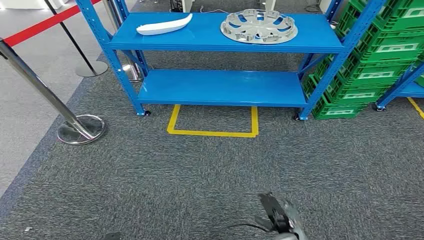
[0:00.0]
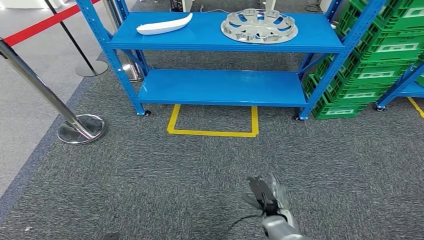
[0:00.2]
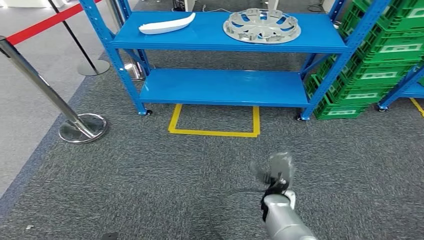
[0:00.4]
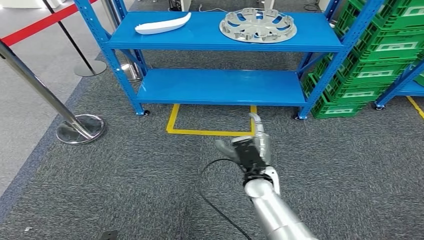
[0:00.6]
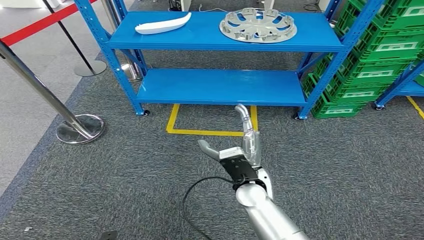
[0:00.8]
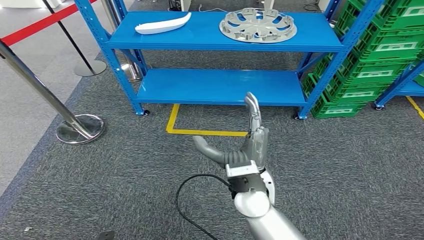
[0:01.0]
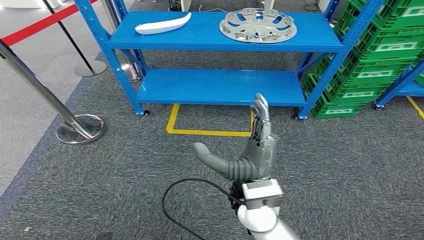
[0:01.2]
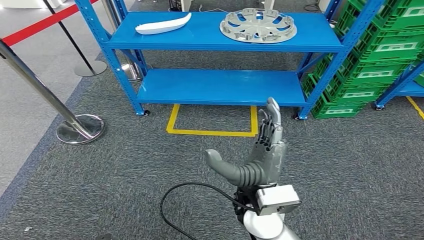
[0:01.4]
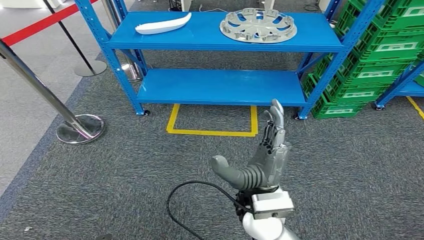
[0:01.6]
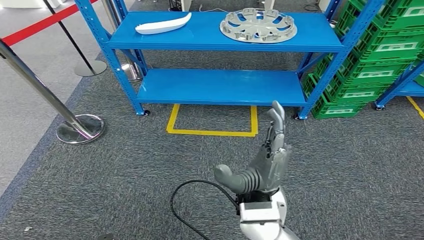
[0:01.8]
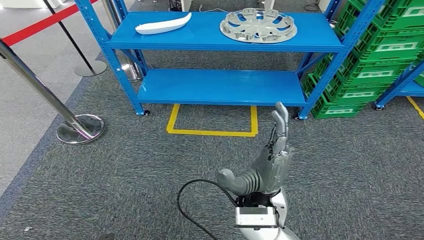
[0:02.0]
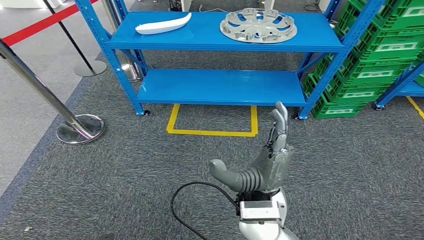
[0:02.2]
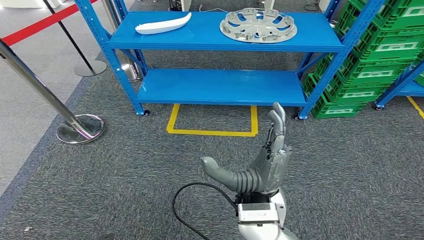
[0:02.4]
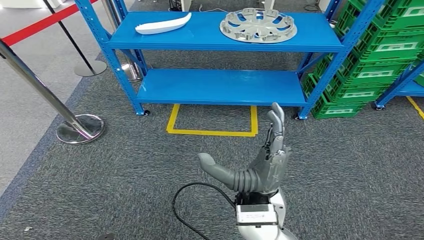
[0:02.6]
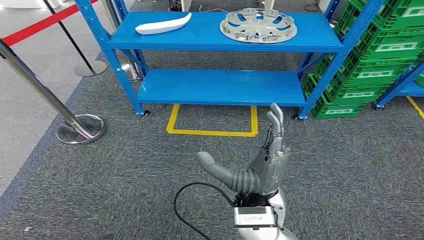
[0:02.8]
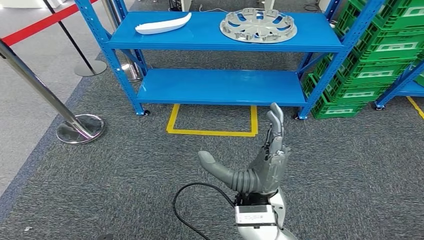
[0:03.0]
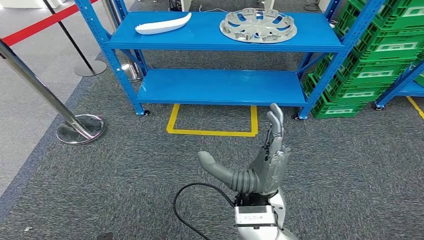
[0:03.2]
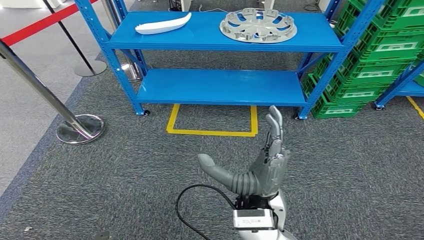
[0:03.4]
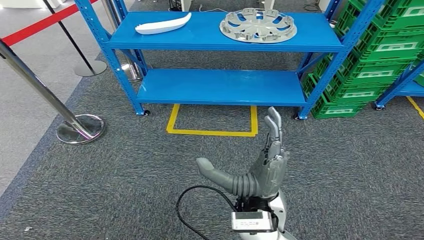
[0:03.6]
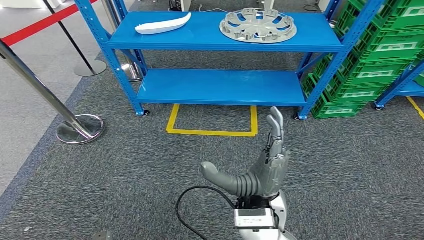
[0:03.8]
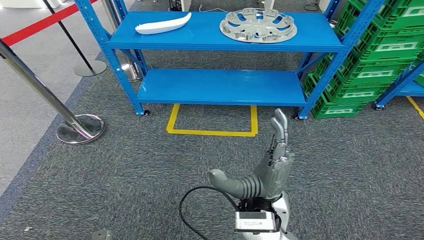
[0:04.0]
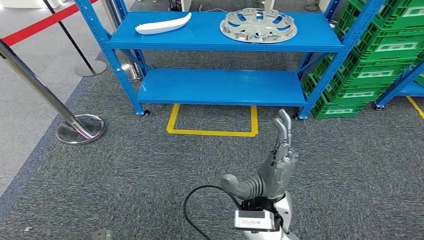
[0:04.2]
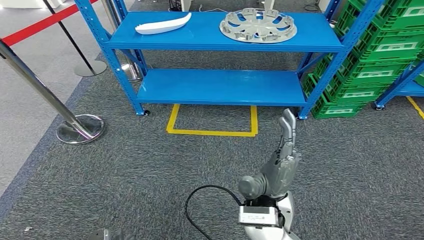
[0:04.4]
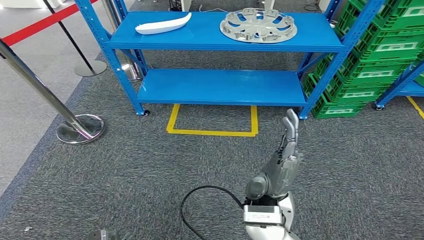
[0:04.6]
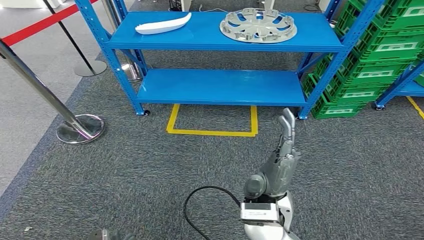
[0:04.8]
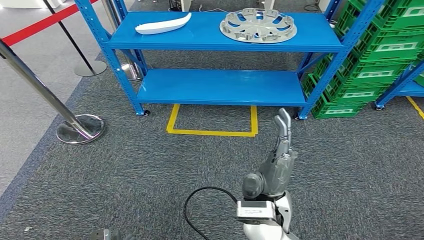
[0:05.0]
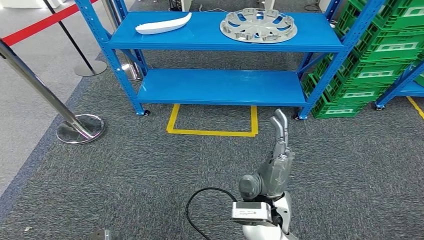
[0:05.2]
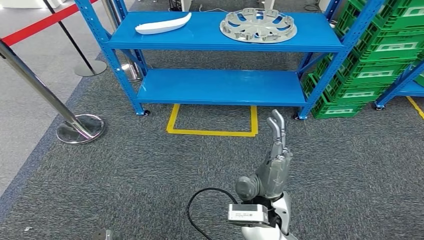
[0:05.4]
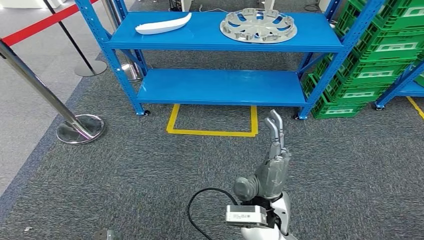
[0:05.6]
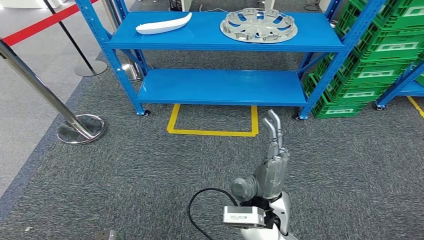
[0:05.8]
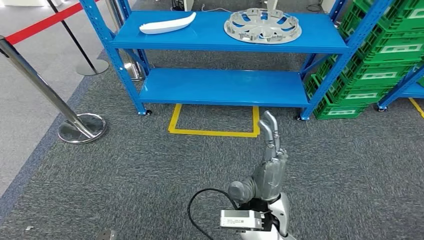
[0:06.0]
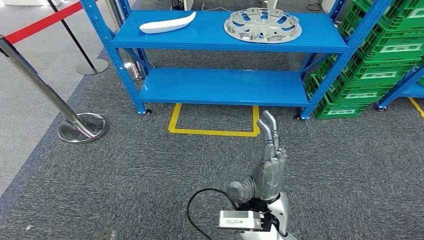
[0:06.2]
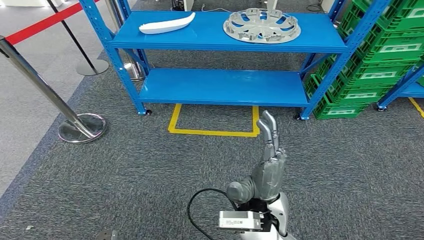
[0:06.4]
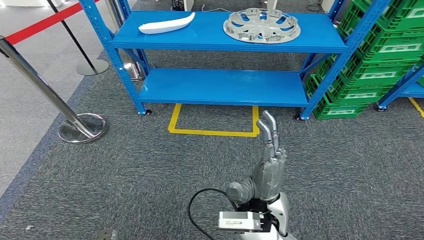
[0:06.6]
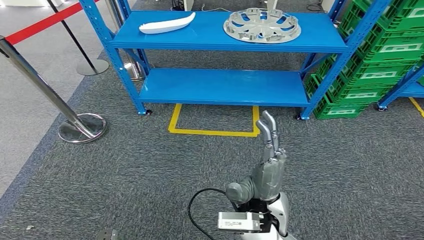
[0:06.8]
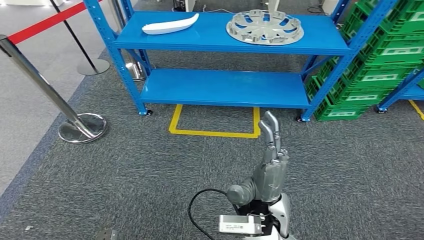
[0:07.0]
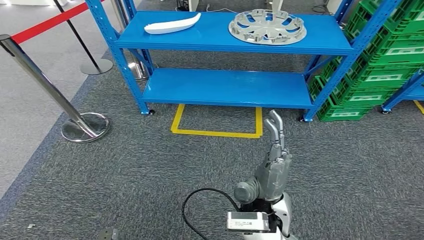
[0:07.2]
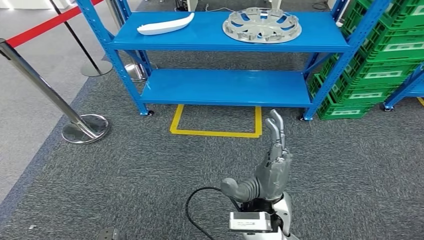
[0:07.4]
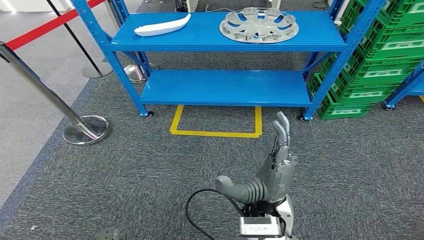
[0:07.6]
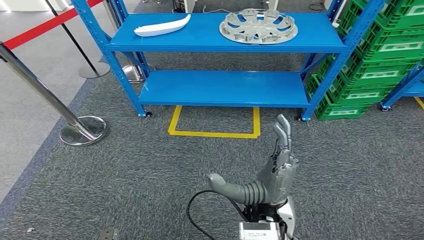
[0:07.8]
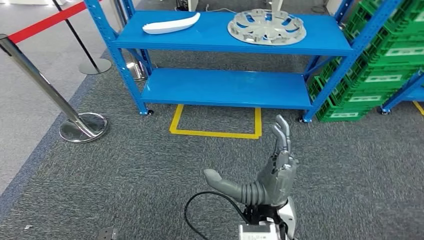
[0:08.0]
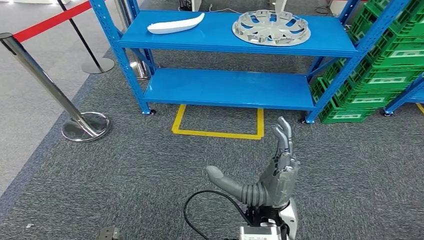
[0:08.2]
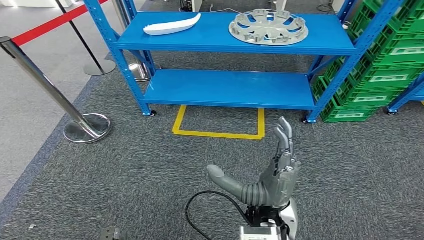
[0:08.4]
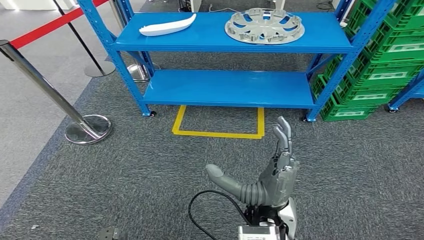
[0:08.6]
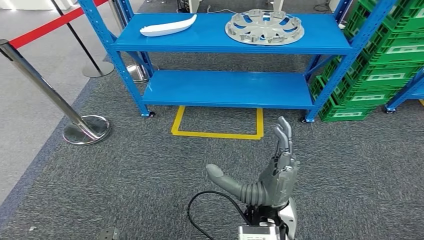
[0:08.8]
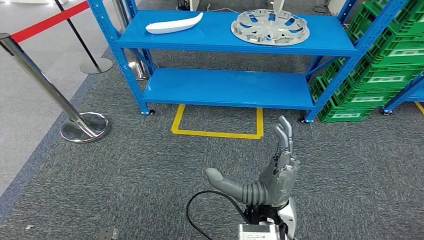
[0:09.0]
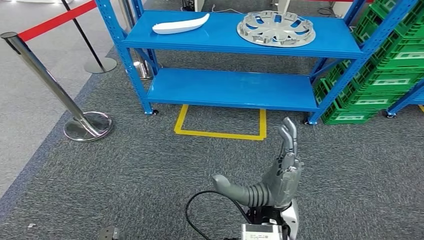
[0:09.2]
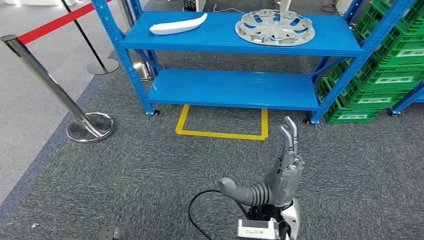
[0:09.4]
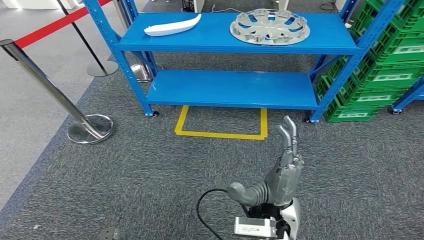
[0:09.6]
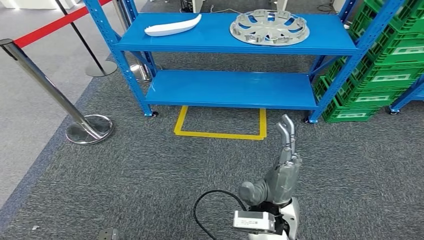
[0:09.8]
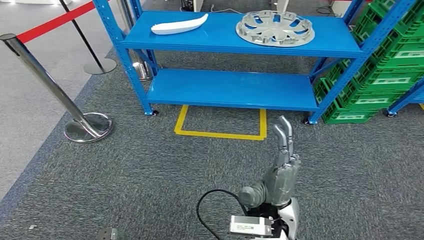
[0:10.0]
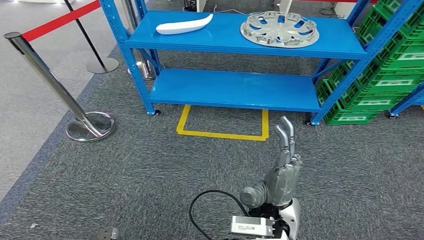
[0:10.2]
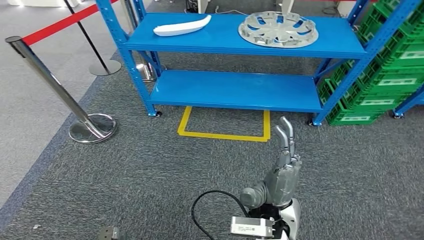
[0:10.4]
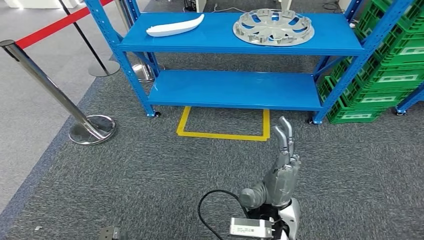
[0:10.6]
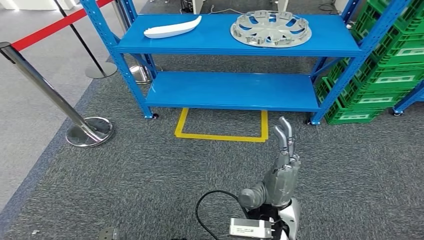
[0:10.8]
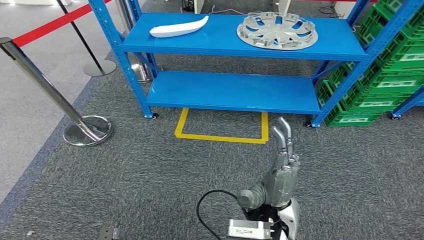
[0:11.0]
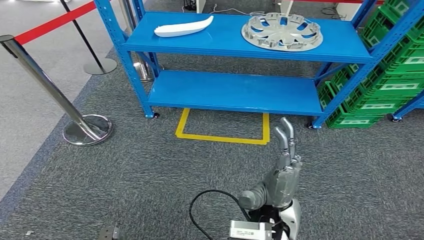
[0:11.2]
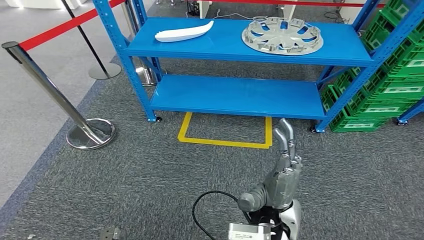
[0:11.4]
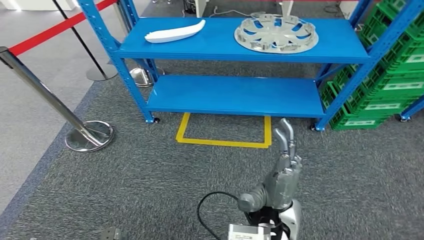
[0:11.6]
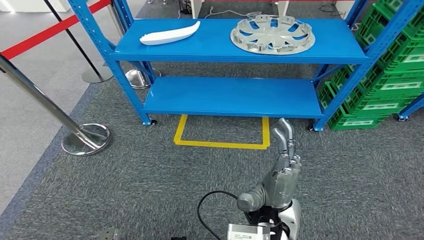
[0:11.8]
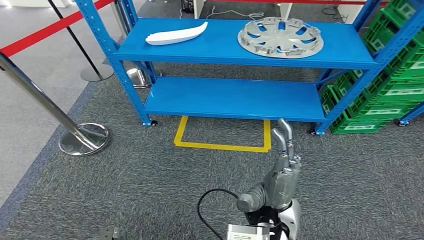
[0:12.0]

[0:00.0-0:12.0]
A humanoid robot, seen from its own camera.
0:01.6 to 0:03.0: The hands stay close to where they were, moving slightly.
0:04.4 to 0:07.6: The hands stay close to where they were, moving slightly.

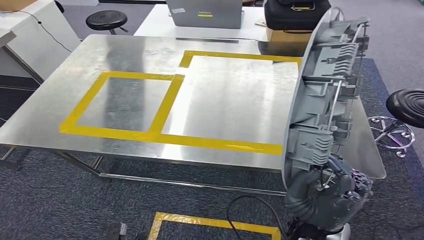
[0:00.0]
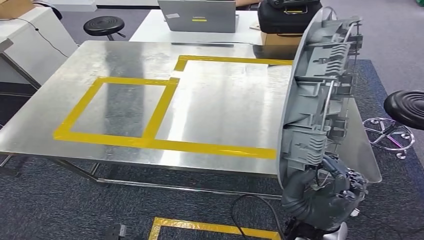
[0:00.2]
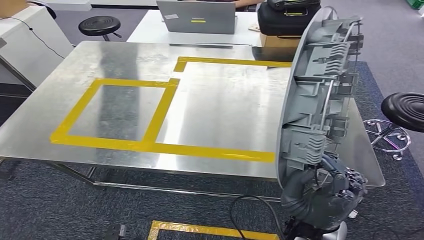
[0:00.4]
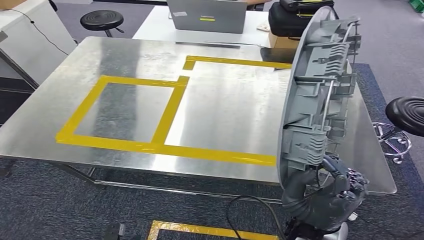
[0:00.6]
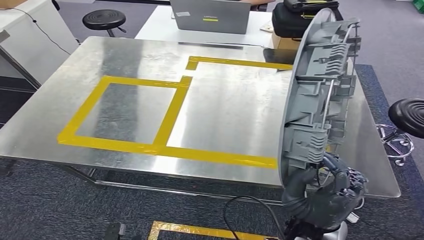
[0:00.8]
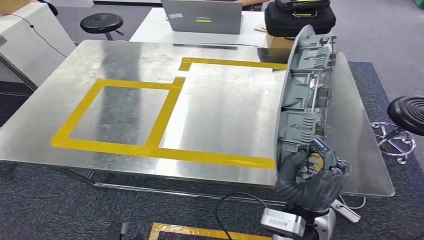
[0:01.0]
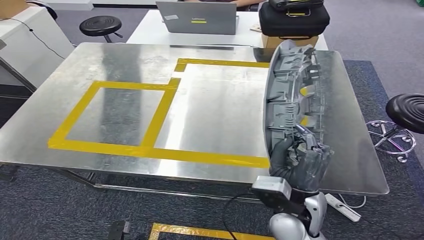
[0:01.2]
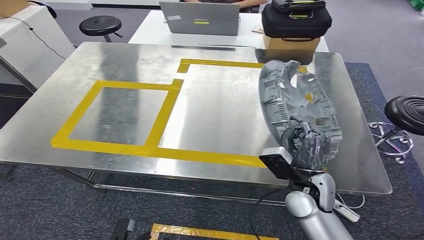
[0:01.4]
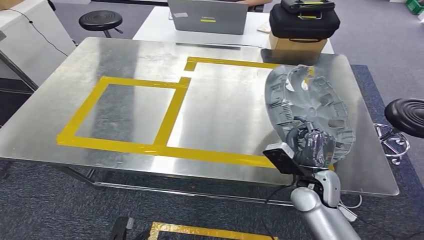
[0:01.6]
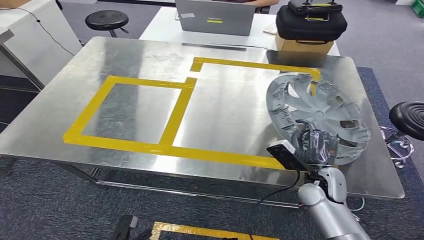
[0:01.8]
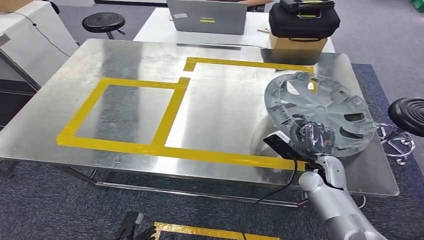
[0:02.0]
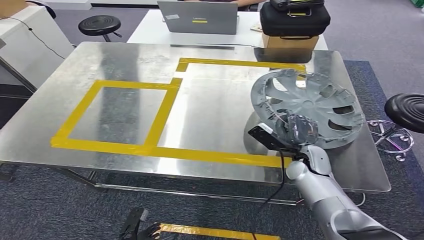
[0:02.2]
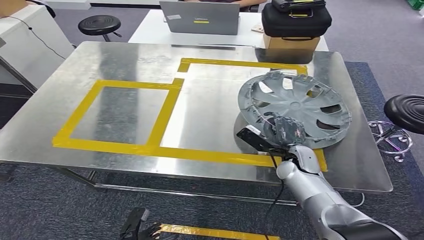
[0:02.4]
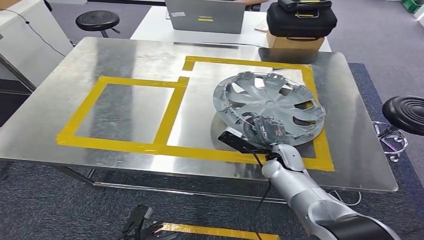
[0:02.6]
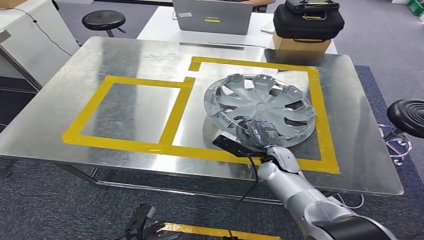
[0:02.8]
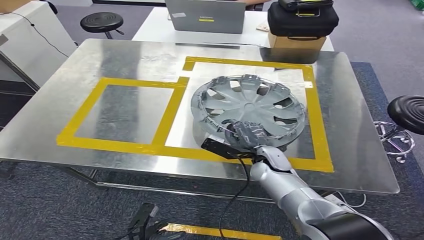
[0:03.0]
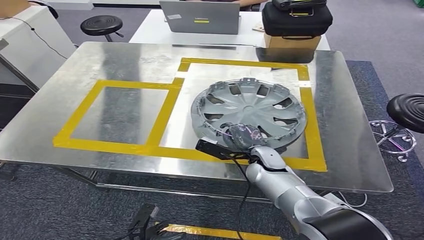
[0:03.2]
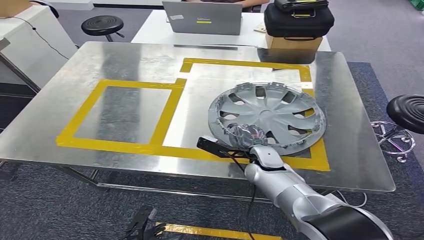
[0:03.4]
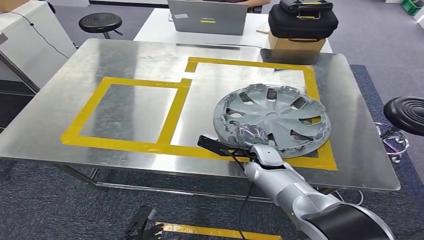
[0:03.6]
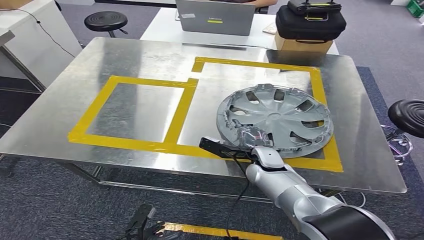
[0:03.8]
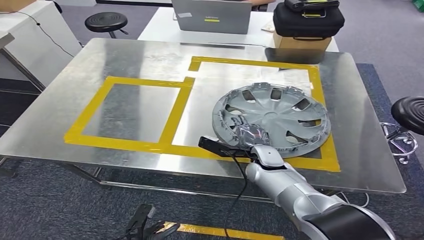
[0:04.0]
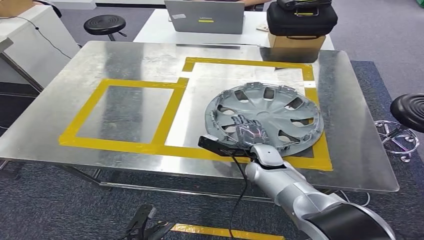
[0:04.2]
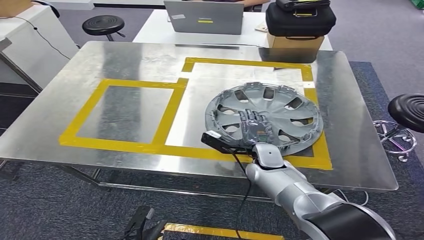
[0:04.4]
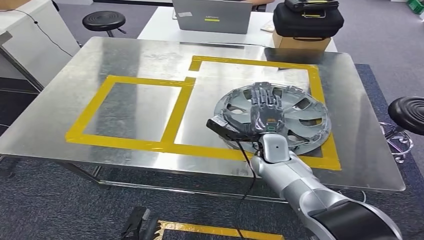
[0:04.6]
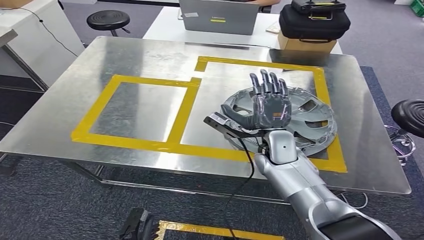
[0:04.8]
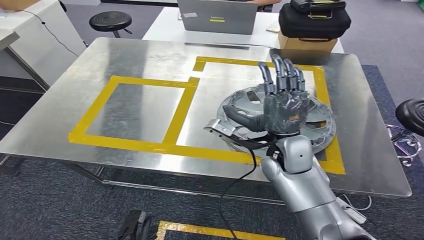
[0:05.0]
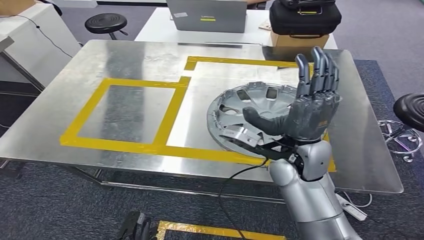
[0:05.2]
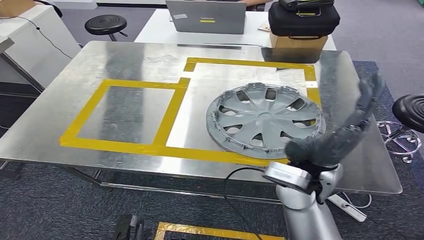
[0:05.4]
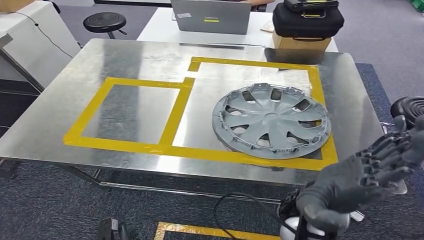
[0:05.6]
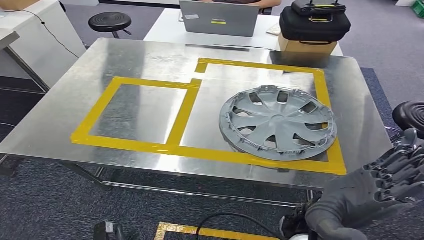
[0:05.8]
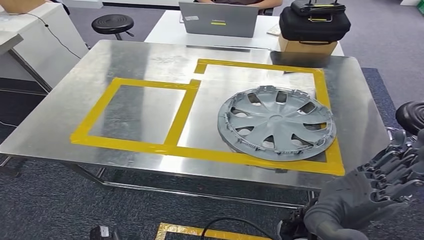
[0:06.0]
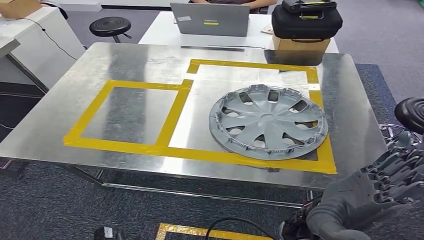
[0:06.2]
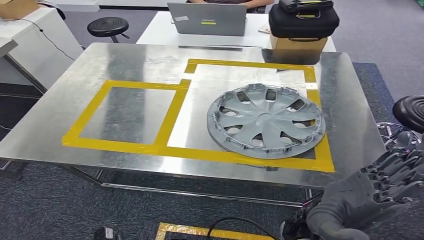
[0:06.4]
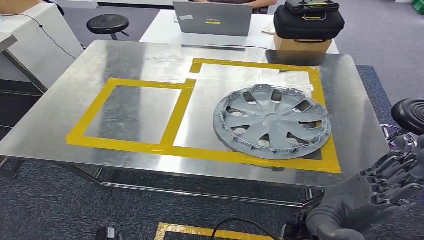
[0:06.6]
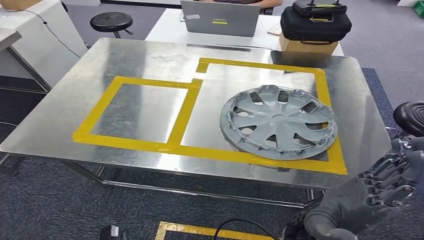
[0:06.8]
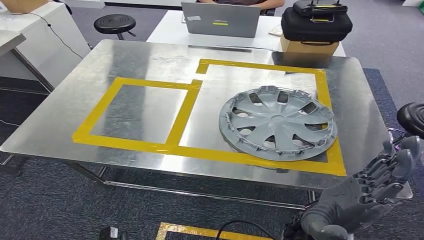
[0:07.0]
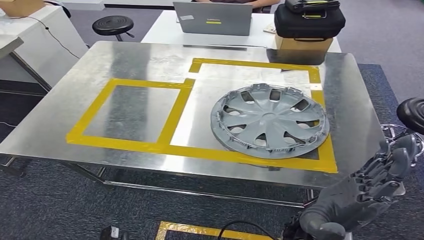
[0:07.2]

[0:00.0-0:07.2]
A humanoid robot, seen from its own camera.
Step, 0:00.8 to 0:06.0: Insert the small parts into the corresponding holes on the workbench.
